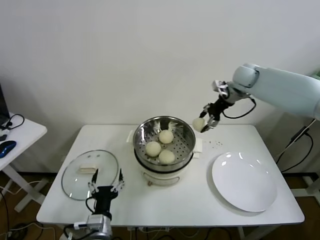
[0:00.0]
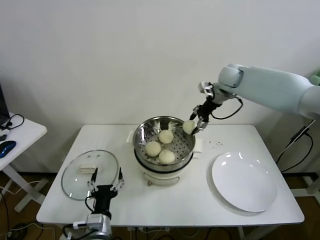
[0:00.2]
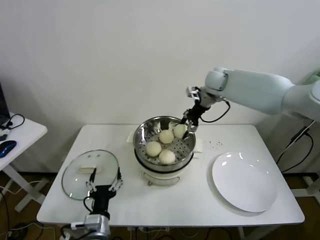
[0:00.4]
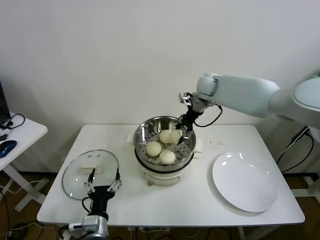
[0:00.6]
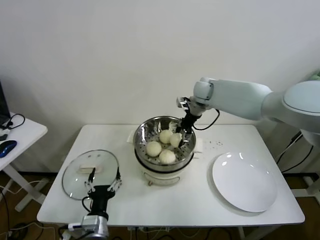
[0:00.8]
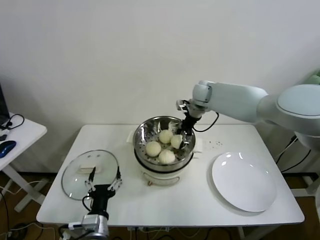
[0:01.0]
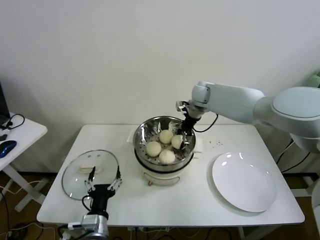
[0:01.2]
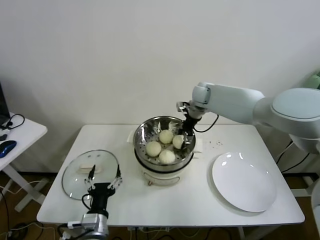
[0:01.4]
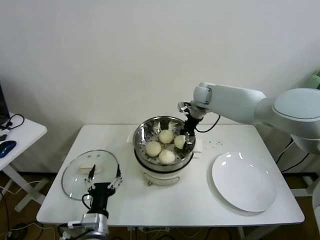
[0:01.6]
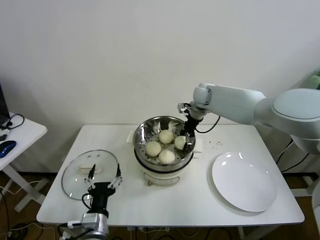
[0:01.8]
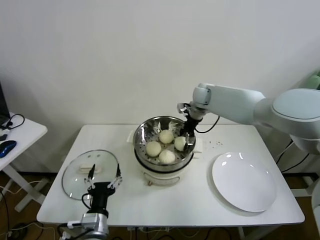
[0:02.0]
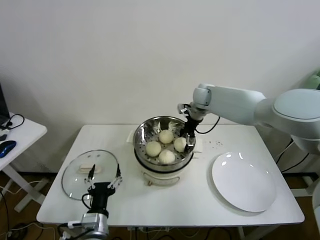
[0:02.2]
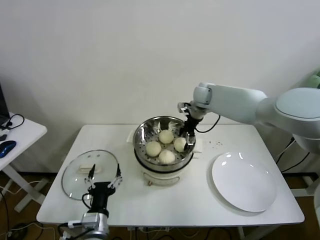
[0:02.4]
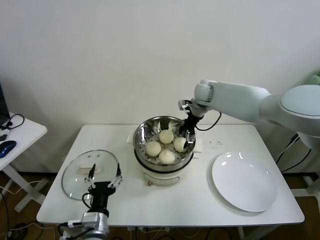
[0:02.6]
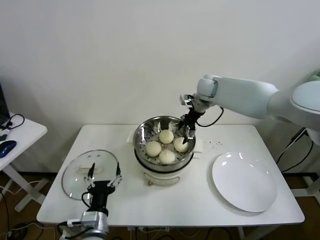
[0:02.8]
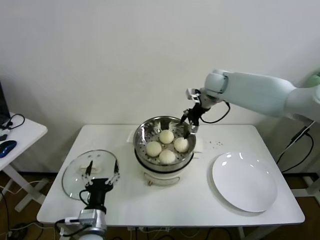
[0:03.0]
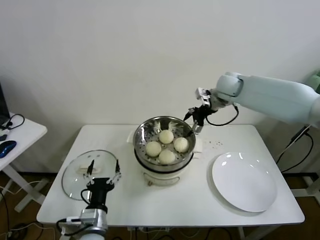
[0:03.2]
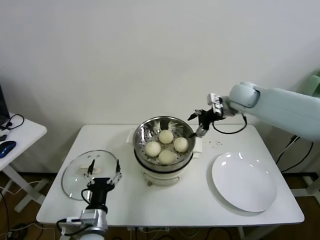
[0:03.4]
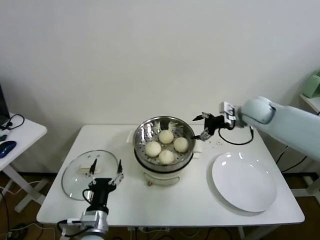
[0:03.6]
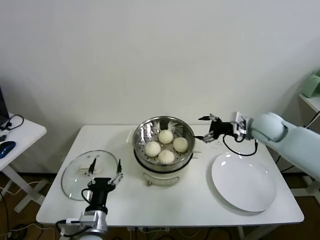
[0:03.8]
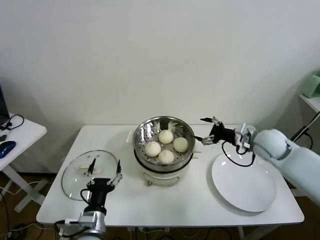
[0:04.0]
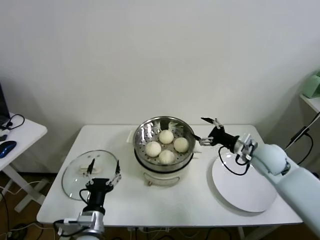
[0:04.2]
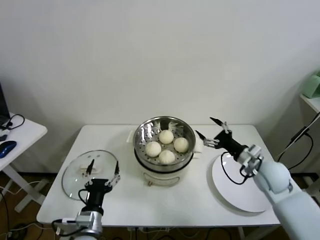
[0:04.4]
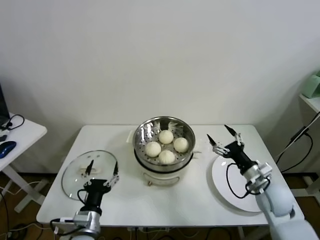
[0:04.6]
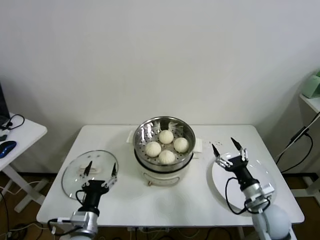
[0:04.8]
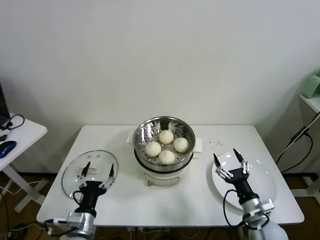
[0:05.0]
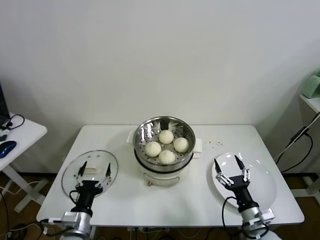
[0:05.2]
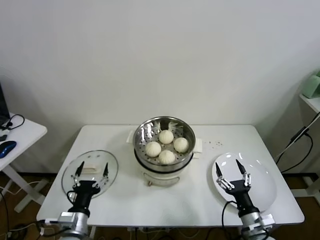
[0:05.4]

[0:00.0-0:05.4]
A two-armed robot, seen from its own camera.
Task of the whole recording: take steamed baozi put them in steamer.
Step, 0:00.0 to 0:02.6: Place the baozi on the steamer with right gripper.
0:00.0 to 0:01.4: The right gripper shifts roughly 15 cm to the left and downward.
0:01.4 to 0:02.8: The right gripper opens up.
0:02.8 to 0:04.0: The right gripper goes approximately 25 cm backward, to the right and downward.
0:04.0 to 0:05.4: The left gripper heads to the left, covering approximately 5 cm. The right gripper goes approximately 30 cm backward and downward.
